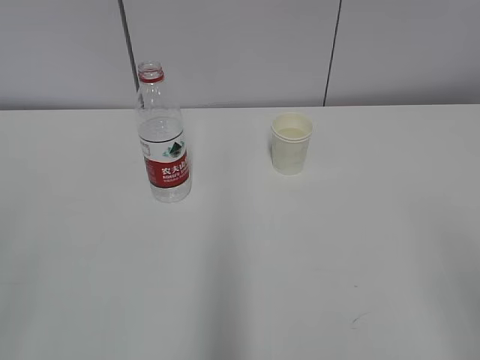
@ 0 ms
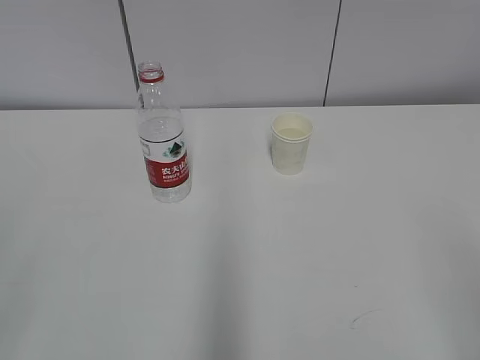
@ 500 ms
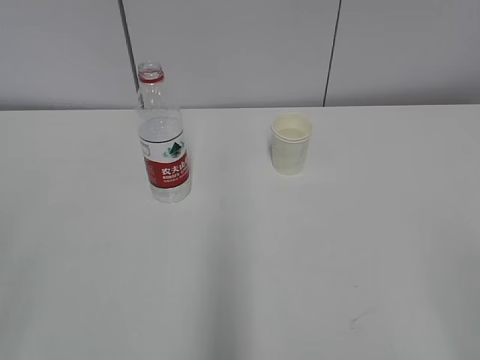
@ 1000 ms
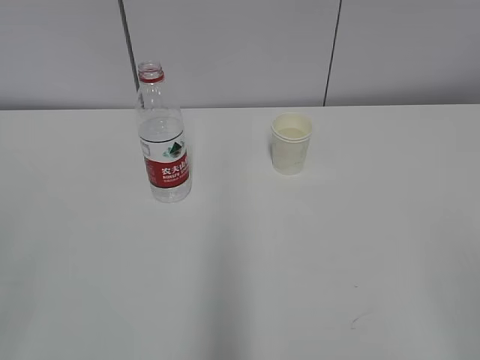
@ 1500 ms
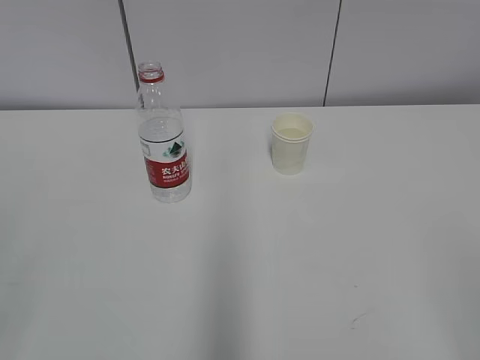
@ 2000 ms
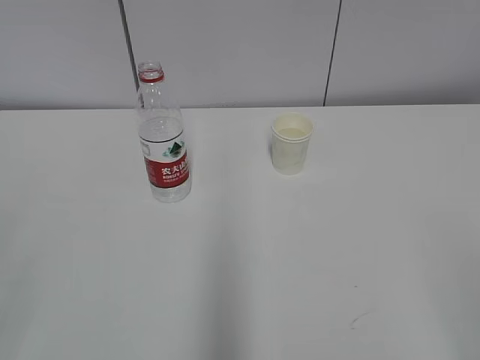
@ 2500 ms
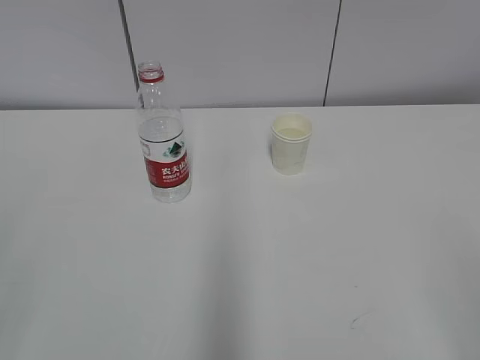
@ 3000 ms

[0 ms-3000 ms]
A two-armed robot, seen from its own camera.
1500 ms to 3000 ms: Neither gripper changes place.

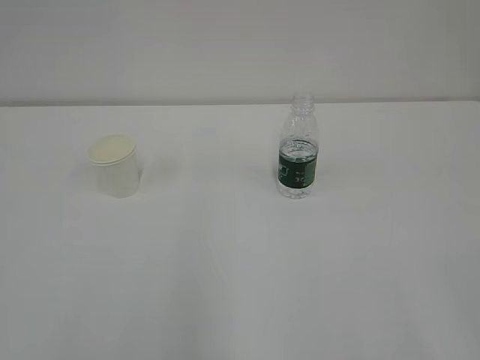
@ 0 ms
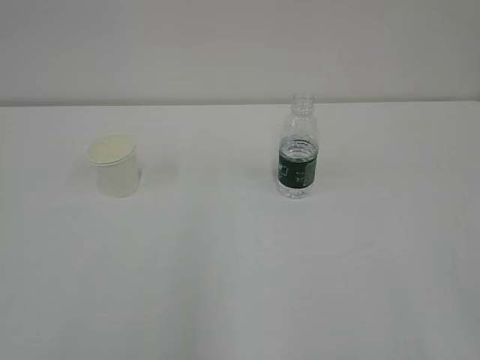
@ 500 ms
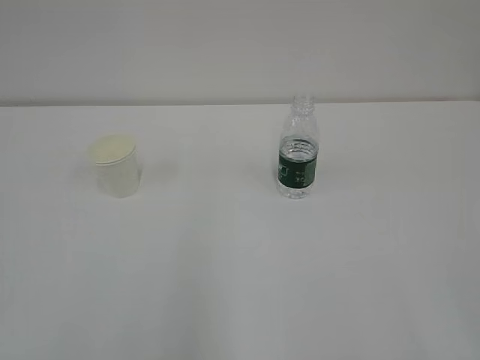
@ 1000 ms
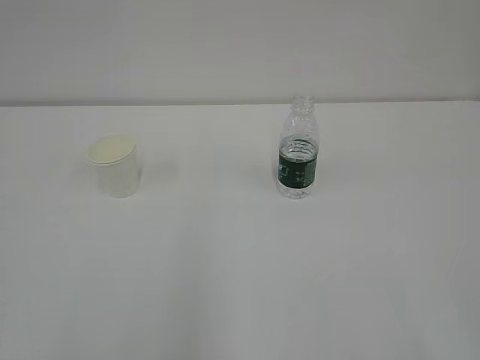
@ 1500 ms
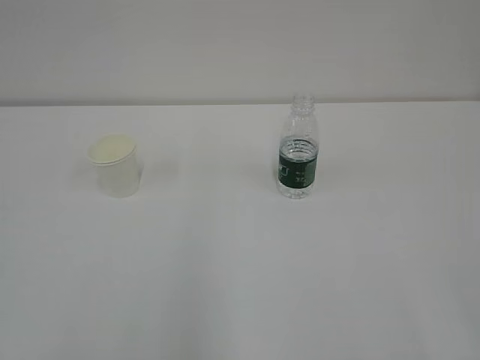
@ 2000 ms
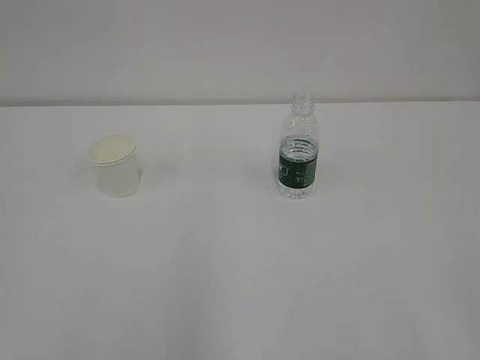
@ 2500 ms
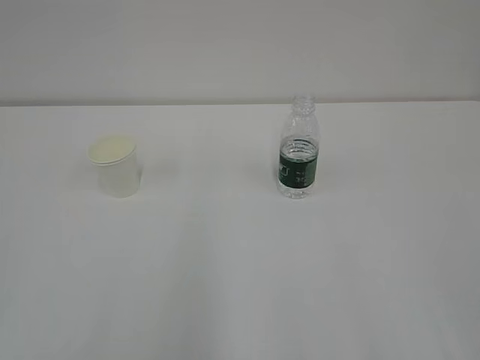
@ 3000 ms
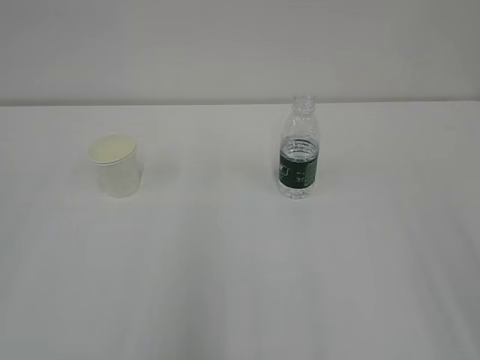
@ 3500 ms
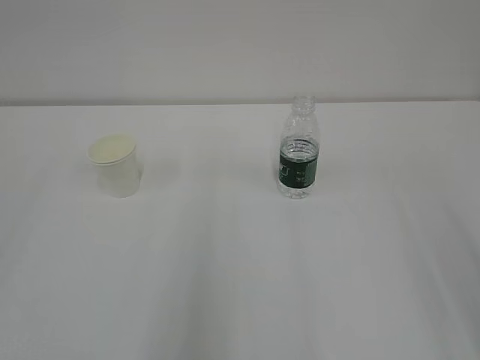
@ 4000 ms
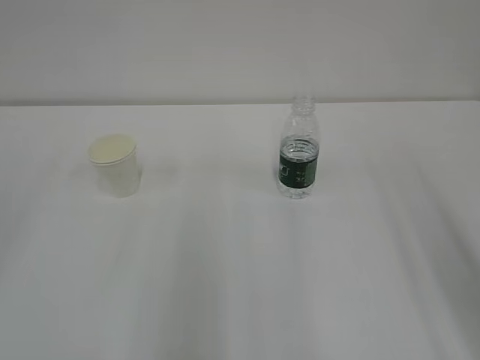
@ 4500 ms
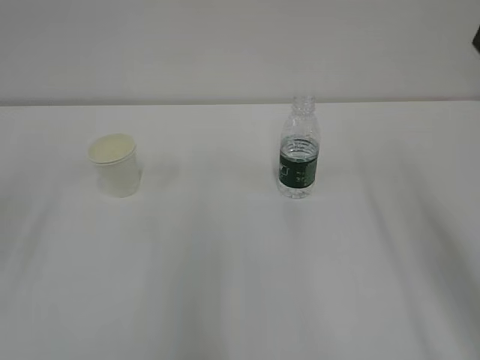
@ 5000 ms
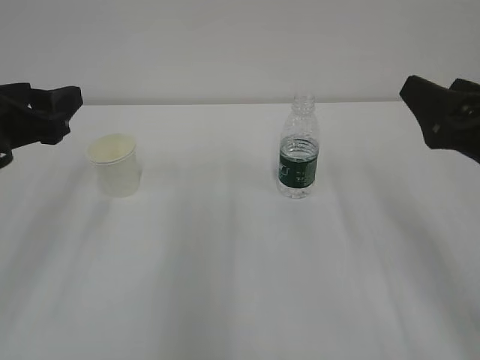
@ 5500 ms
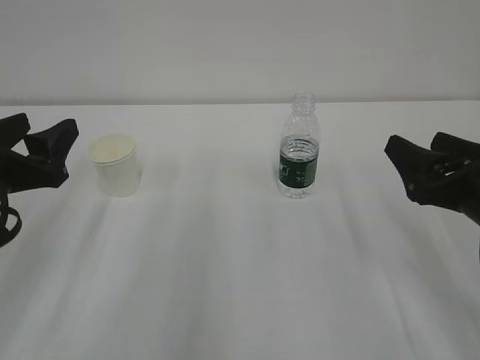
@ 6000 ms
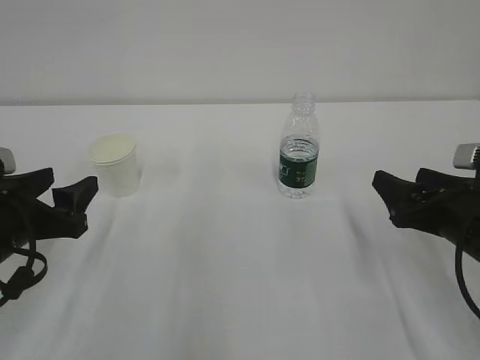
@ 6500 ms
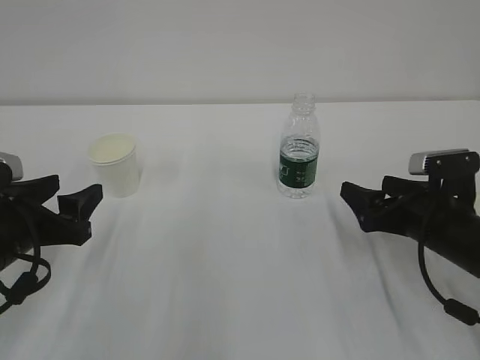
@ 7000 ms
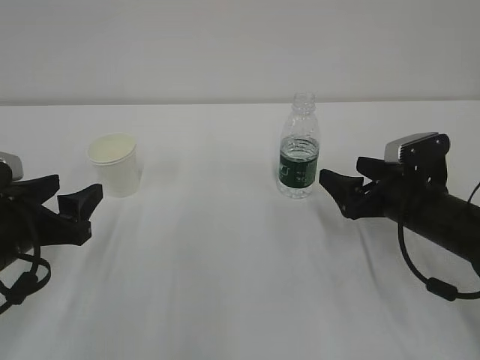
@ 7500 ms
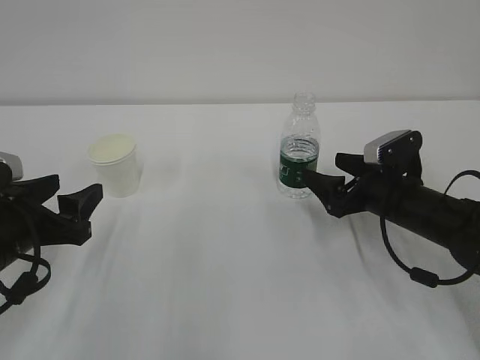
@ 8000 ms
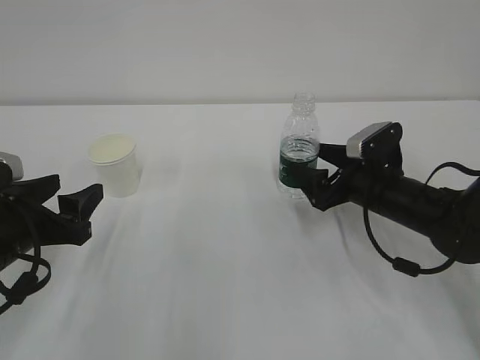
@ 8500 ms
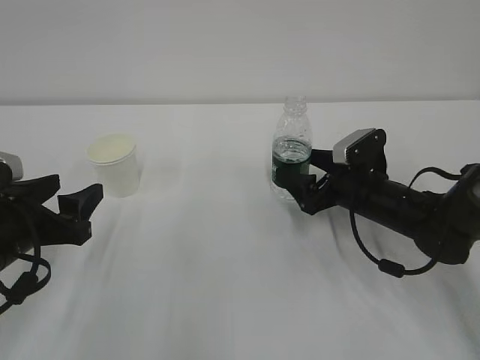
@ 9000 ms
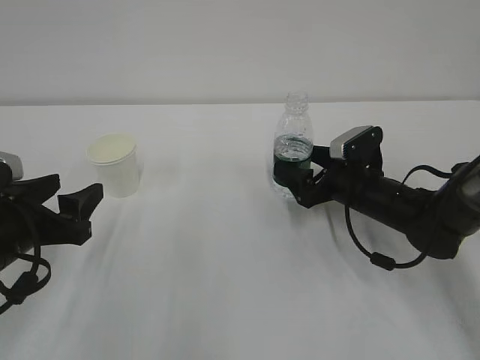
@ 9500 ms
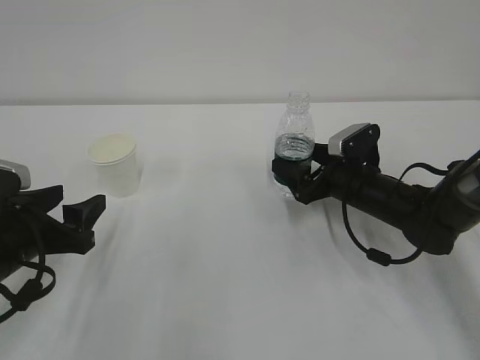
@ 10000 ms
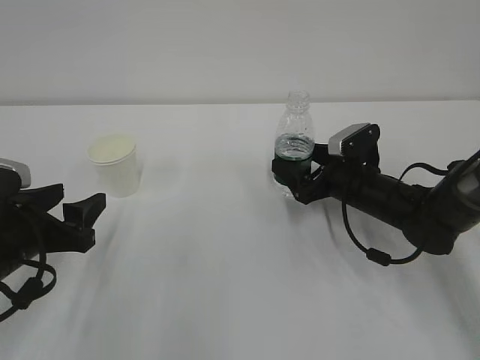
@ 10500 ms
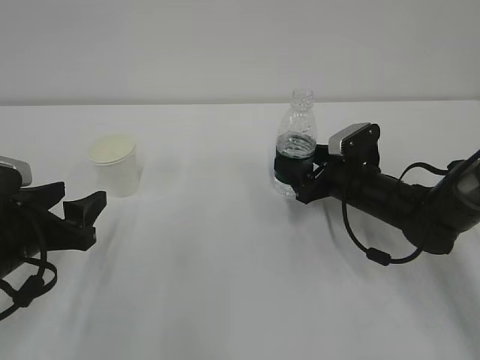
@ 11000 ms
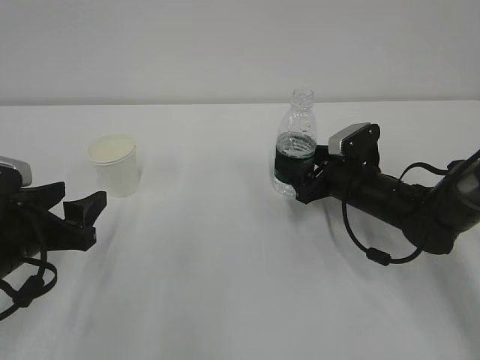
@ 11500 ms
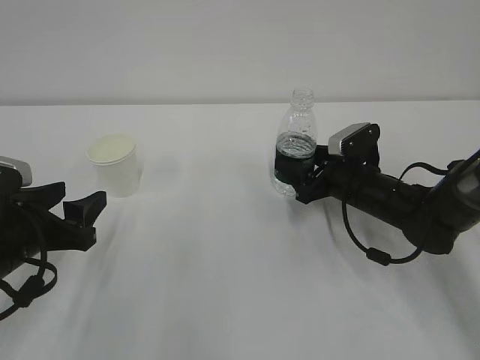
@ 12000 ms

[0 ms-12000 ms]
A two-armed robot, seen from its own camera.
4000 ms to 6000 ms: The left gripper moves downward, forward and to the right, some 20 cm. Meanwhile the right gripper heads downward and forward, covering about 25 cm.
6000 ms to 8000 ms: The left gripper shifts approximately 5 cm downward; the right gripper goes some 15 cm forward and downward.
8000 ms to 10000 ms: The right gripper moves roughly 5 cm.

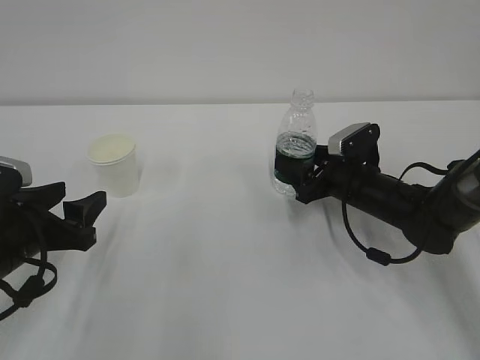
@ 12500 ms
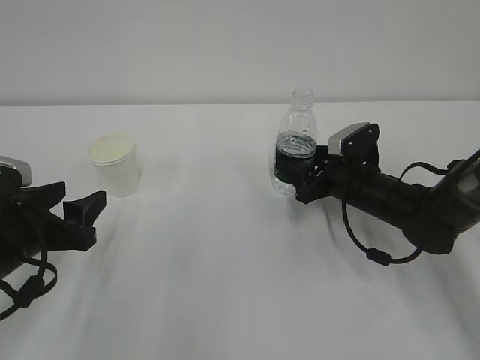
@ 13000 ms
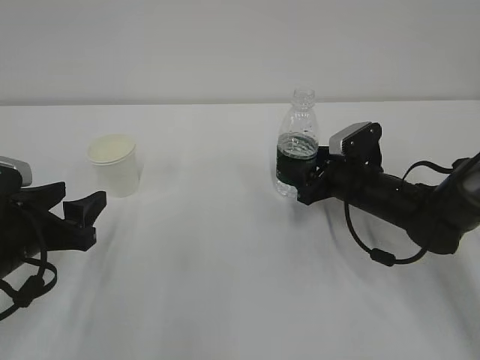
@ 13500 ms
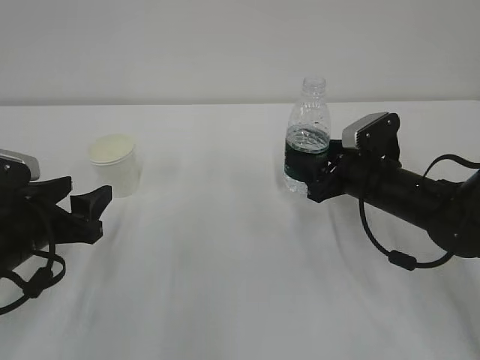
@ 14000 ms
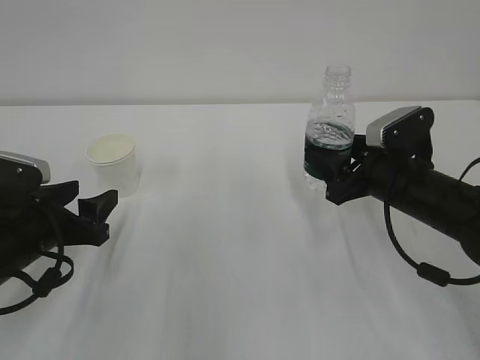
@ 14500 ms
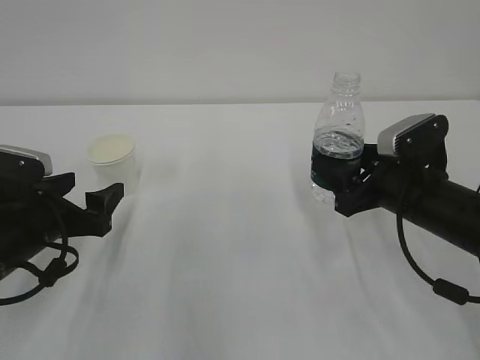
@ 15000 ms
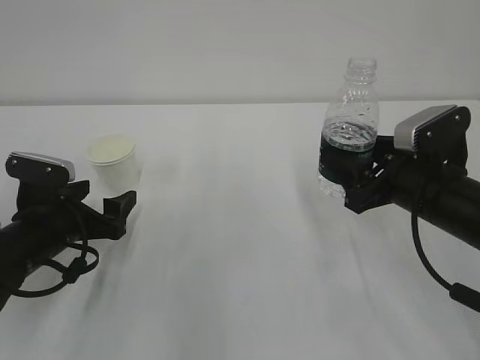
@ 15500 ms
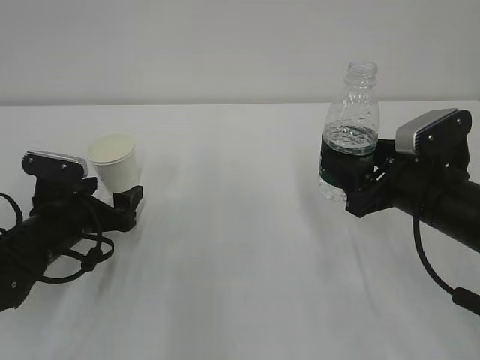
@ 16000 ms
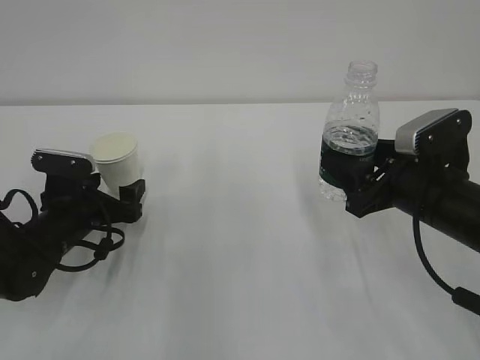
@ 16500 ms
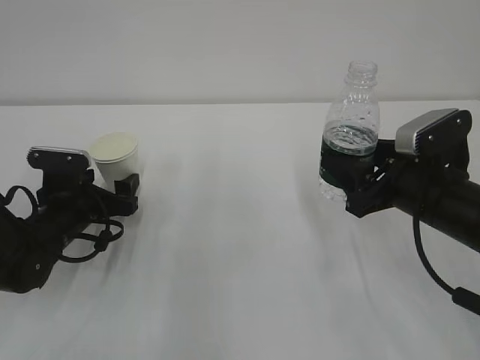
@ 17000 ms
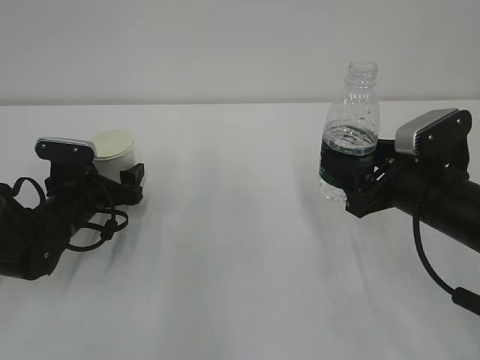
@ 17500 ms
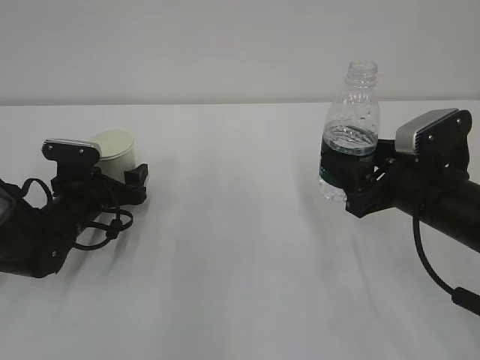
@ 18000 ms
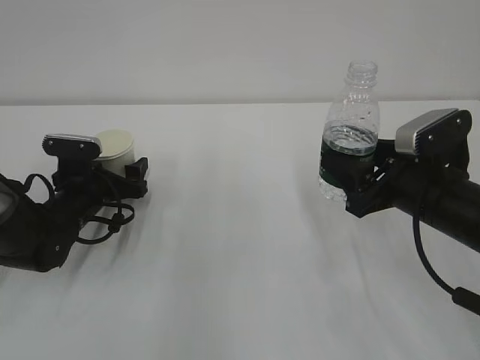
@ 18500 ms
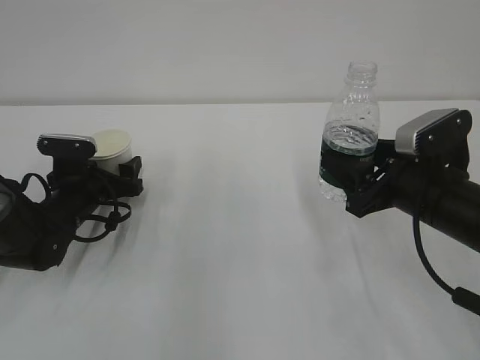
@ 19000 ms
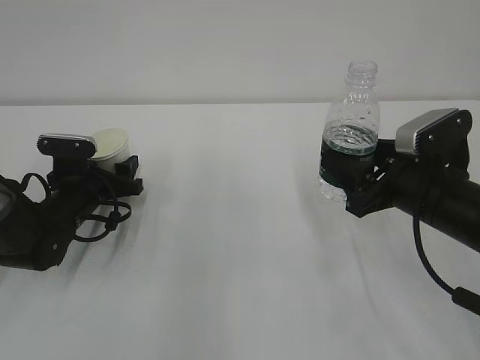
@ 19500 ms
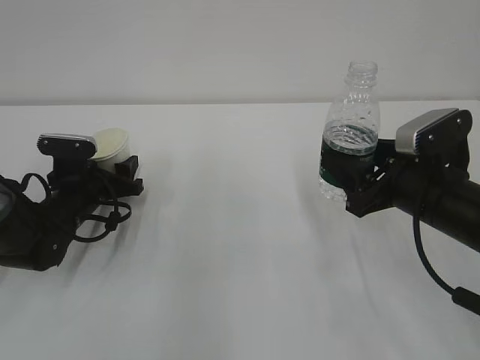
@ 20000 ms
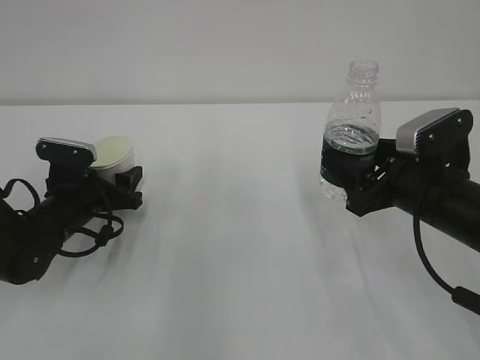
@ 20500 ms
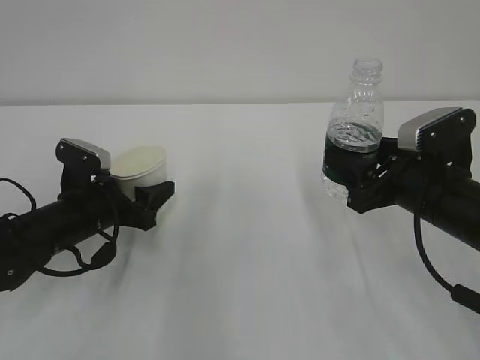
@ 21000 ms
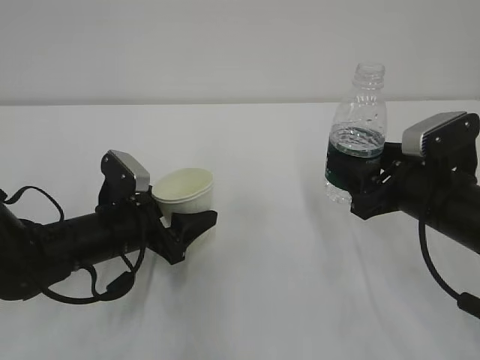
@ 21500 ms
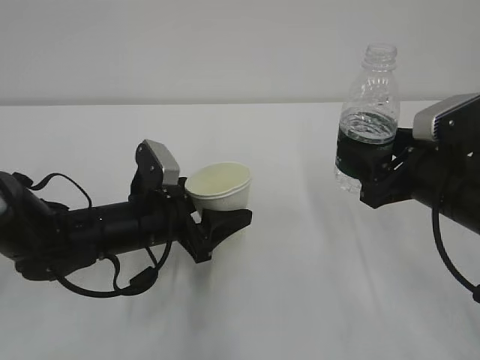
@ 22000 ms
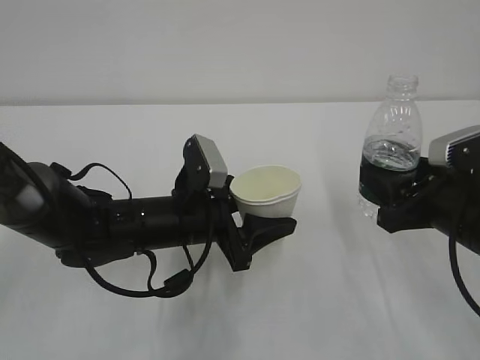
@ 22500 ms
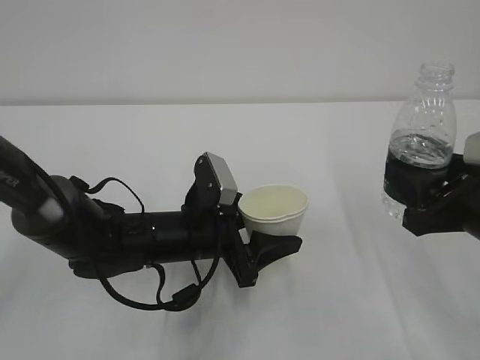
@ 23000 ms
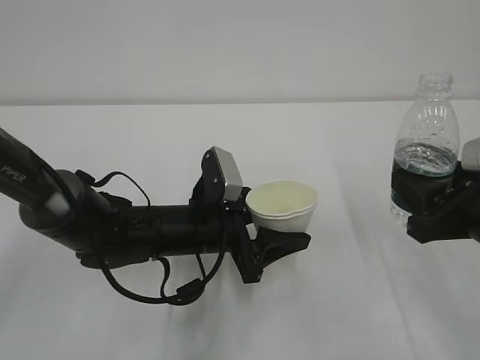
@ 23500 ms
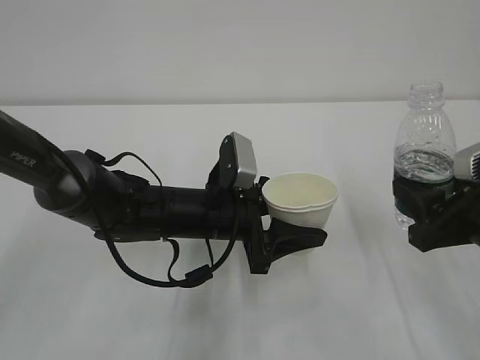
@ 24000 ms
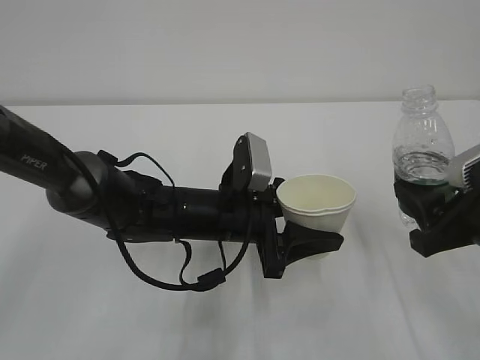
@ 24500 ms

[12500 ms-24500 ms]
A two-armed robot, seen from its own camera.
12500 ms to 14500 ms: The right gripper heads backward and upward, covering roughly 10 cm.
14500 ms to 16500 ms: The left gripper is displaced forward and downward by about 10 cm, and opens.
16500 ms to 18500 ms: There are only small adjustments of the grippers.
18500 ms to 20500 ms: The left gripper closes up.
20500 ms to 22500 ms: The left gripper moves to the right, approximately 15 cm.
